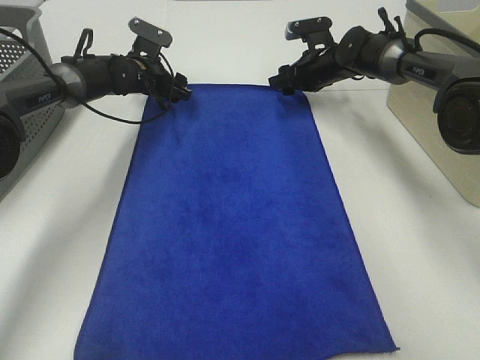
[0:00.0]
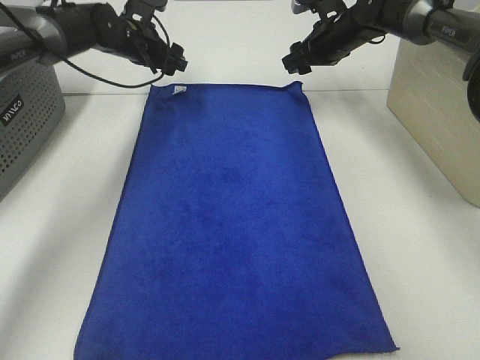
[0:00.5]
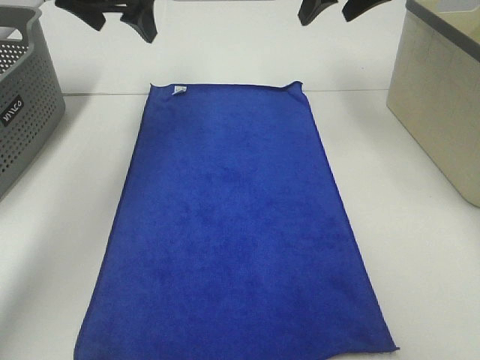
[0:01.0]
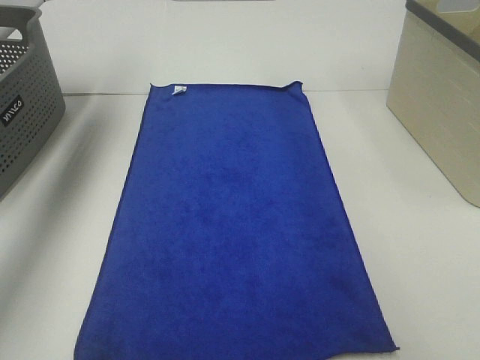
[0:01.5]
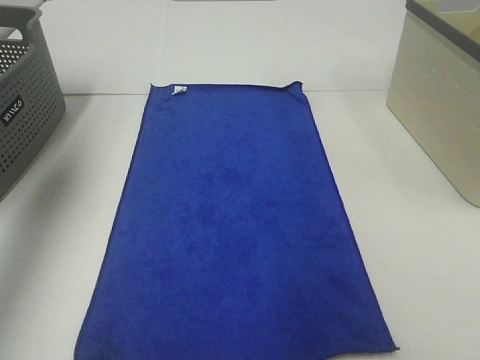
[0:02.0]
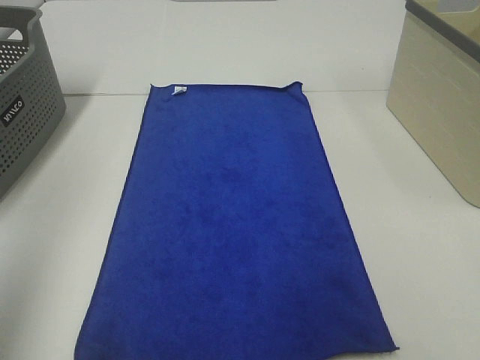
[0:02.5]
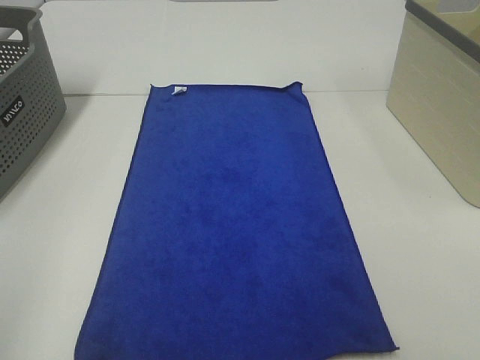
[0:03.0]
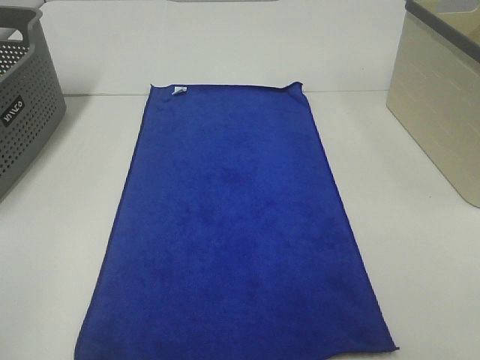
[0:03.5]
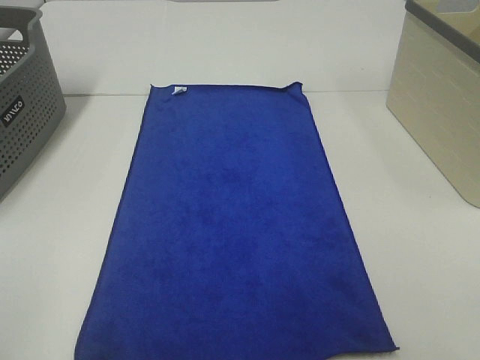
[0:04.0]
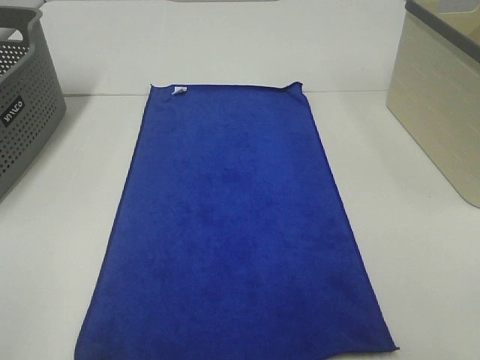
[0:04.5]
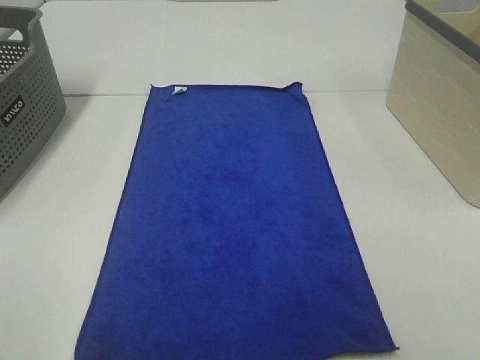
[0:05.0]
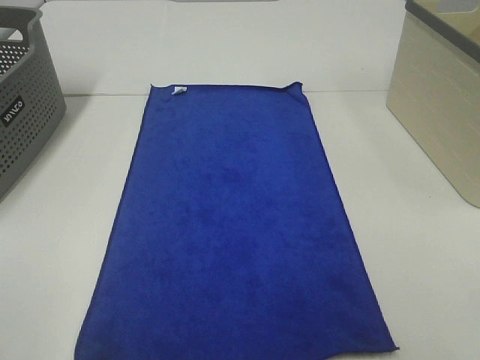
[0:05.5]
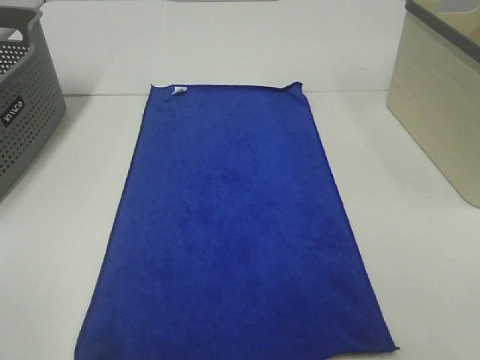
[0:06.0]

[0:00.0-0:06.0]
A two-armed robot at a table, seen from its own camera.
Task of the whole recording: Remove the towel and place it.
0:00.0 to 0:02.0: The right gripper shifts approximately 40 cm upward and backward, while the left gripper goes roughly 50 cm upward, backward and to the left.
0:02.0 to 0:04.0: The left gripper moves backward, roughly 35 cm.

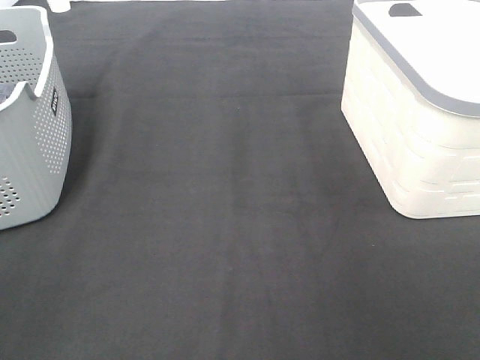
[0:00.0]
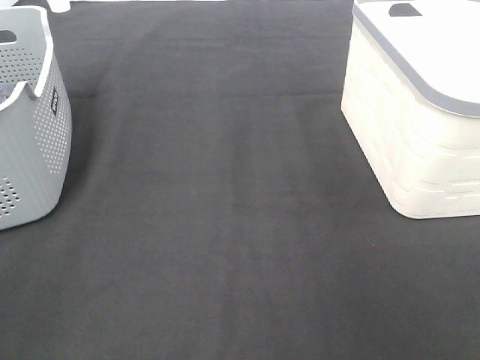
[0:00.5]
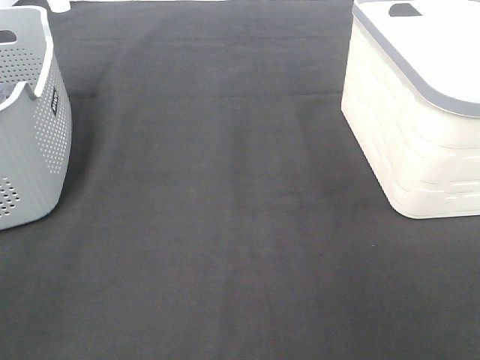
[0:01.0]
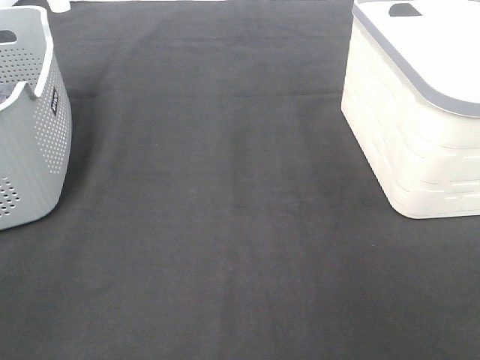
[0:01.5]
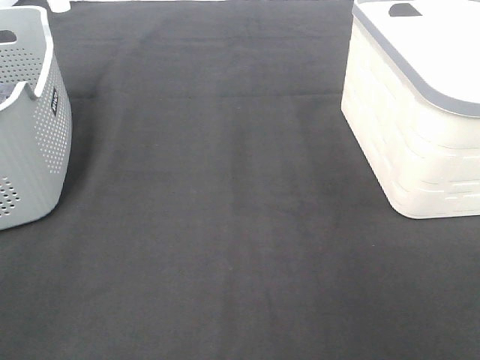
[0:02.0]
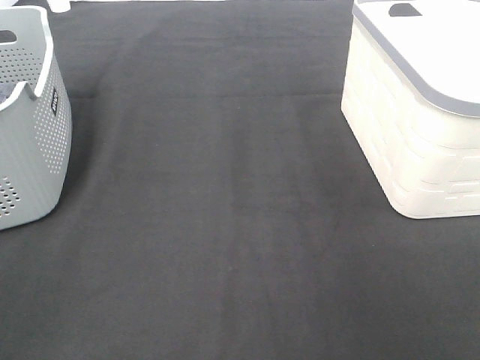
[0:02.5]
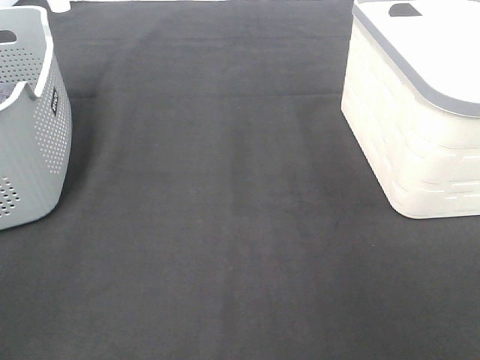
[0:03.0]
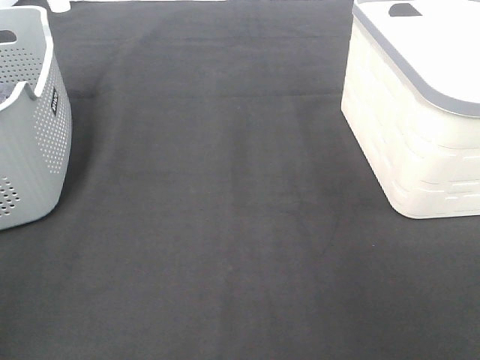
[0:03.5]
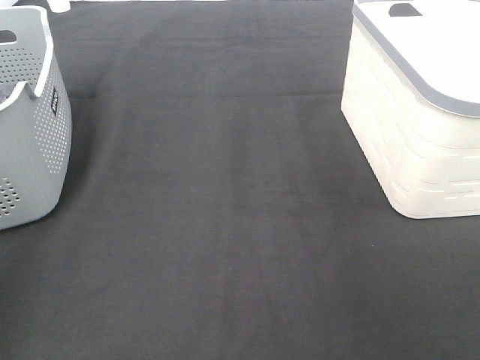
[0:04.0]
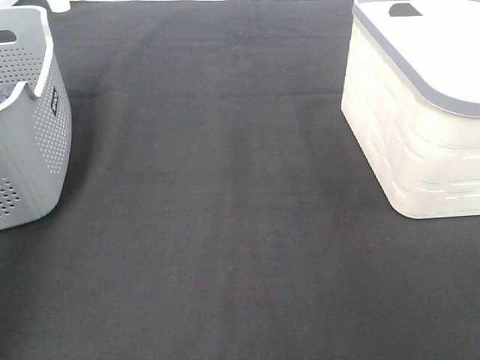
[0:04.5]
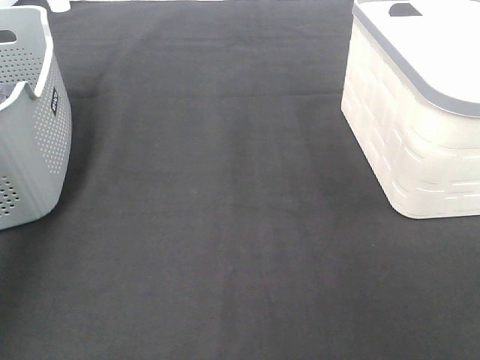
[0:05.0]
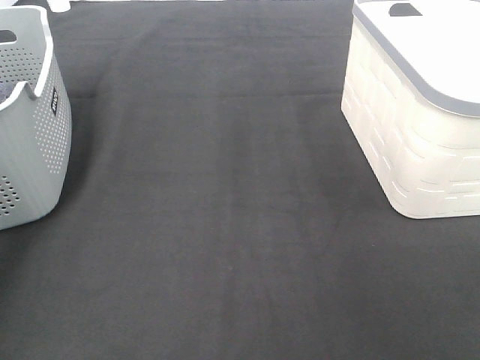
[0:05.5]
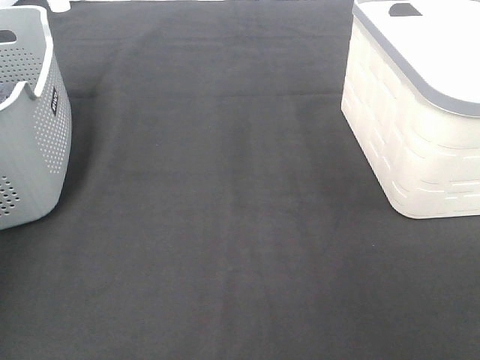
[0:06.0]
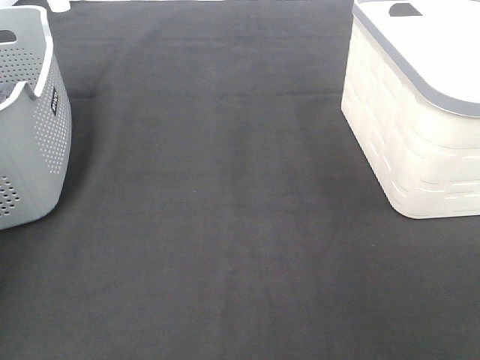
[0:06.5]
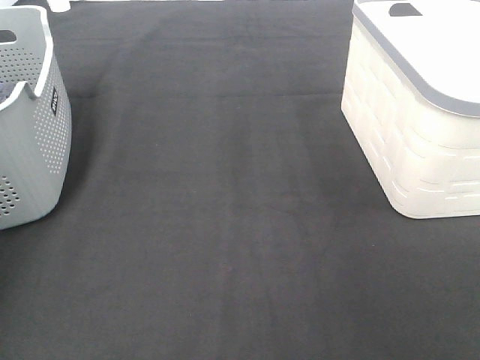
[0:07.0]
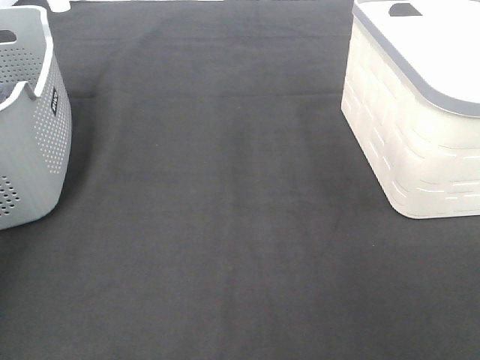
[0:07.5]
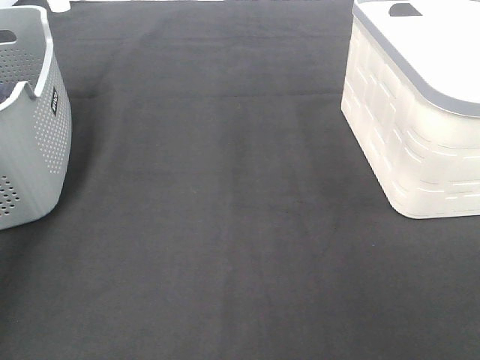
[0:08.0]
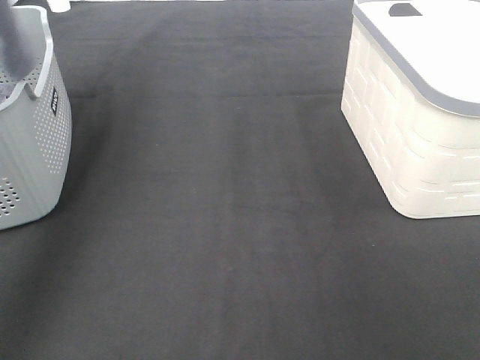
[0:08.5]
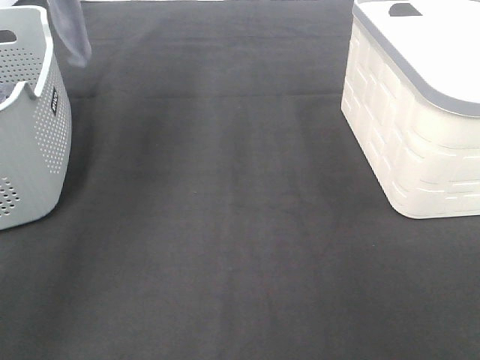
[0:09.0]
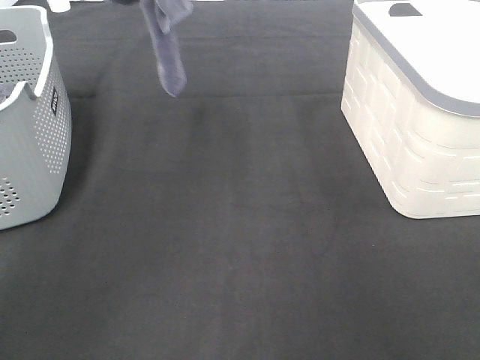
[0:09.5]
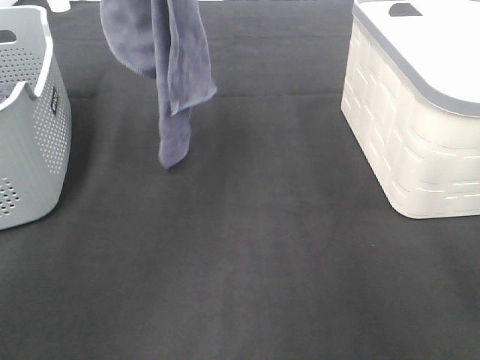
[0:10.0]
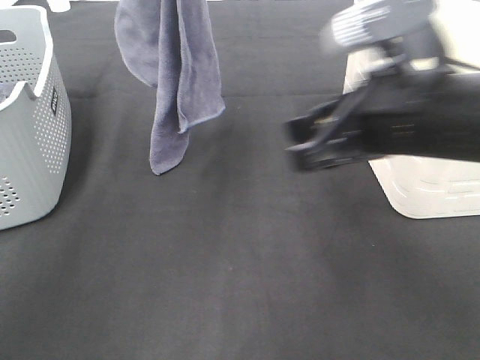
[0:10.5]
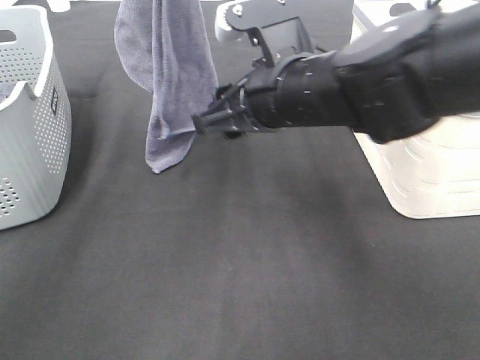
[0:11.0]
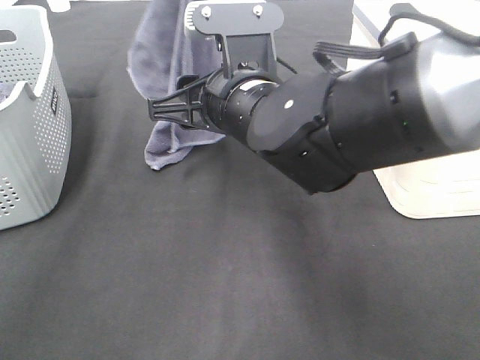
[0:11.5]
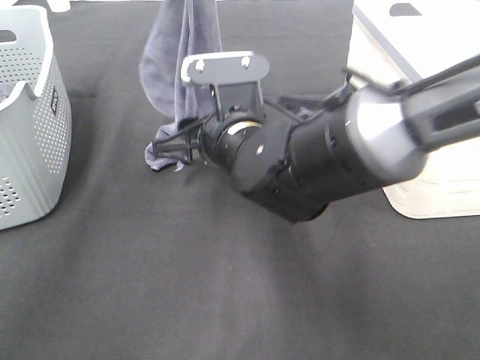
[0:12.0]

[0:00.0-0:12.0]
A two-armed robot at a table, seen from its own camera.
Task of the whole recording: Remove the towel and place it.
0:00.0 to 0:02.0: Both grippers stay put.
0:06.0 to 0:08.0: The left gripper moves upward, about 20 cm, and closes its fingers.
0:08.0 to 0:10.0: The right gripper goes about 15 cm forward. Meanwhile the left gripper moves to the right, approximately 25 cm.
0:10.0 to 0:12.0: The right gripper heads to the left, downward and forward, covering approximately 30 cm, while the left gripper shifts approximately 5 cm downward.

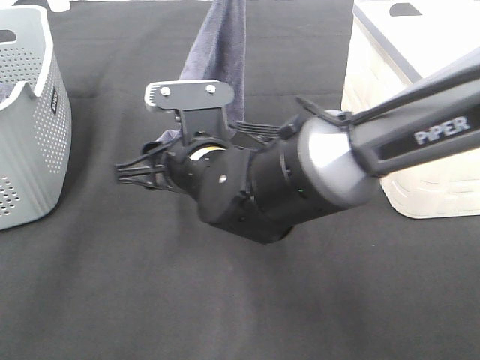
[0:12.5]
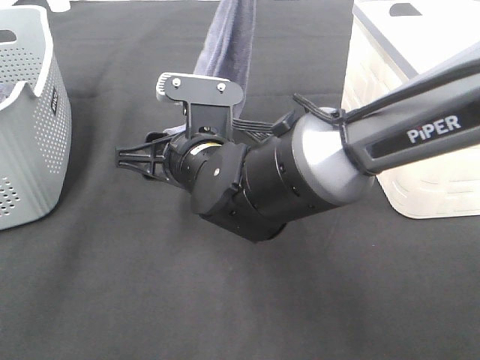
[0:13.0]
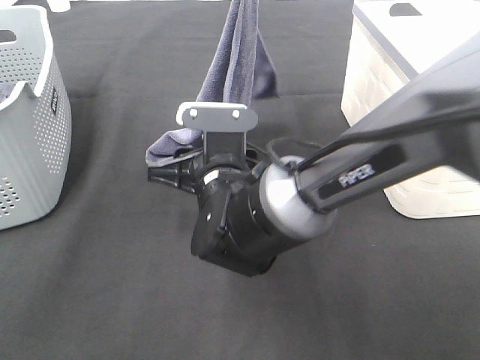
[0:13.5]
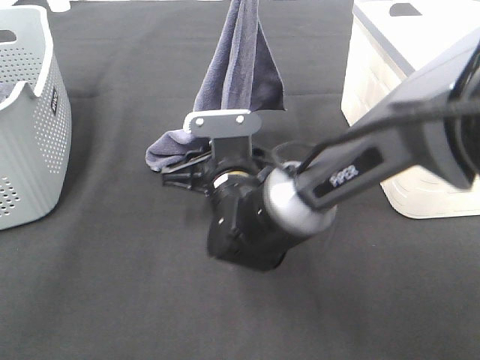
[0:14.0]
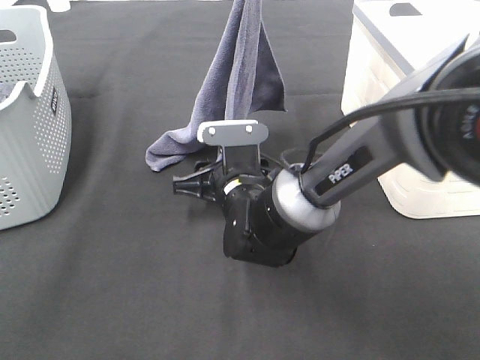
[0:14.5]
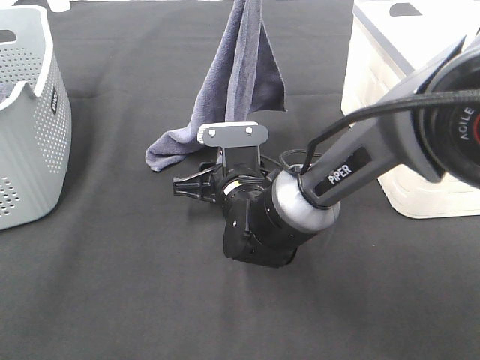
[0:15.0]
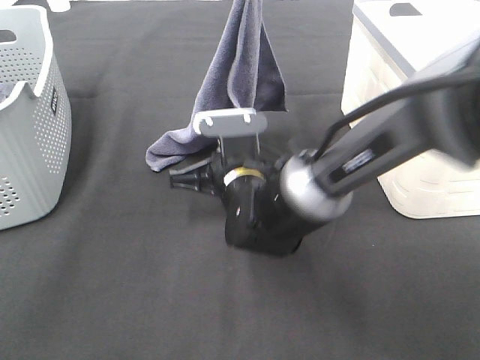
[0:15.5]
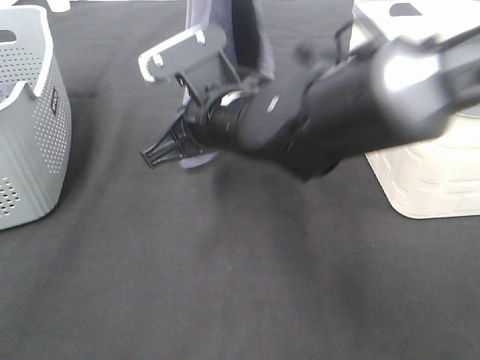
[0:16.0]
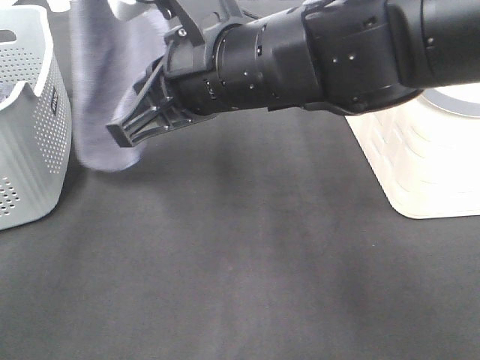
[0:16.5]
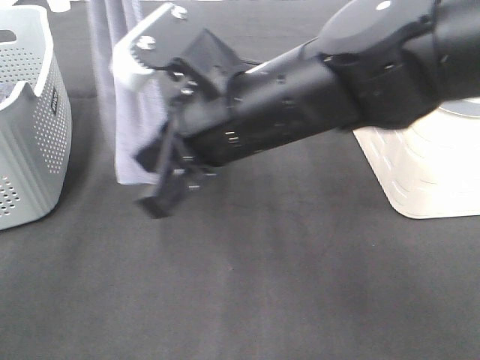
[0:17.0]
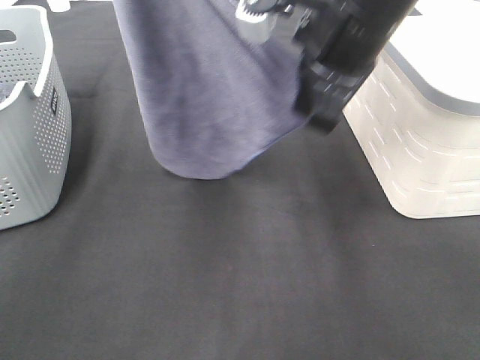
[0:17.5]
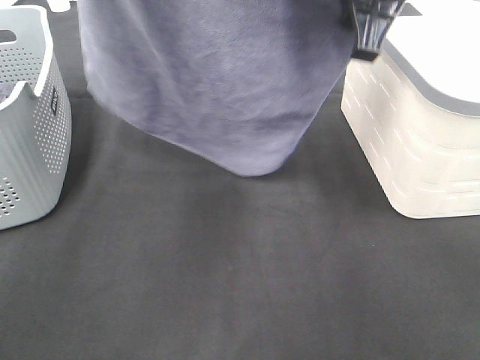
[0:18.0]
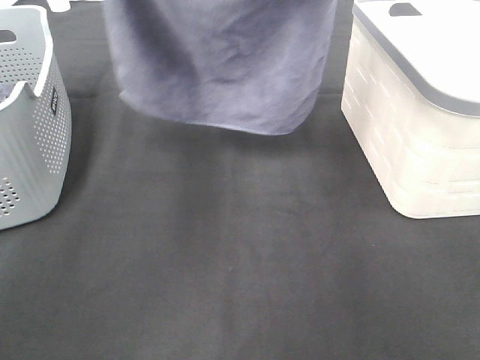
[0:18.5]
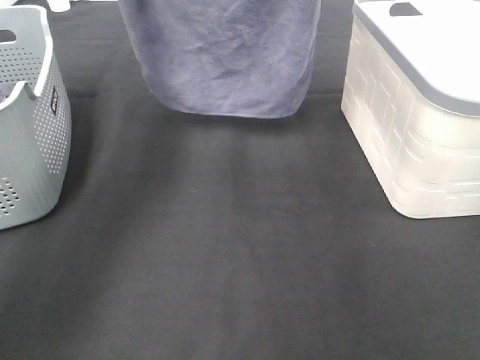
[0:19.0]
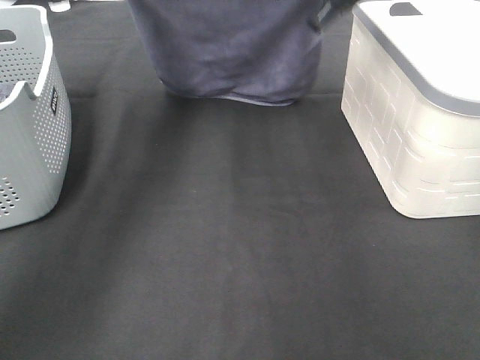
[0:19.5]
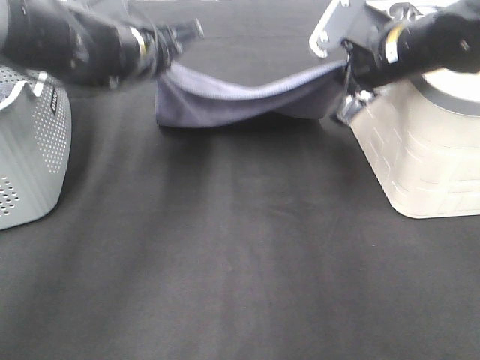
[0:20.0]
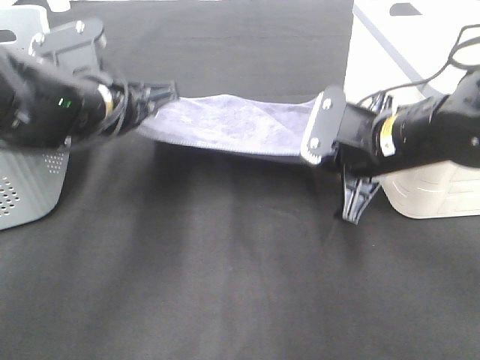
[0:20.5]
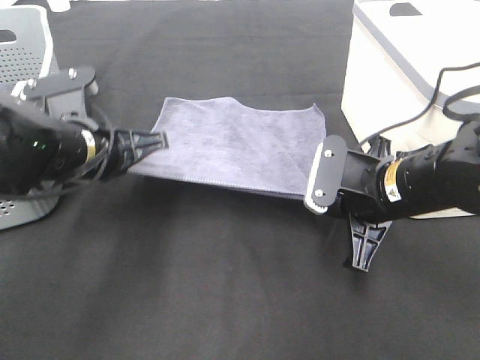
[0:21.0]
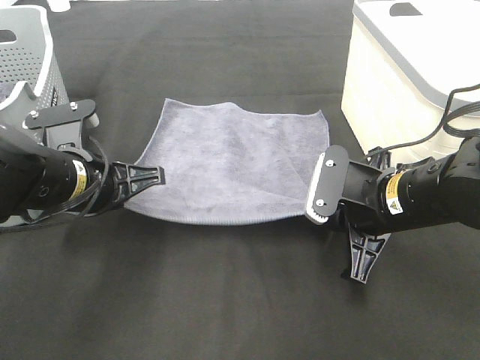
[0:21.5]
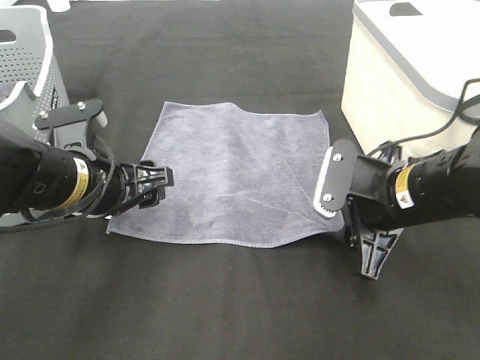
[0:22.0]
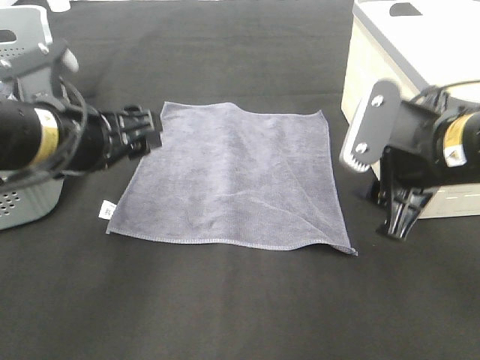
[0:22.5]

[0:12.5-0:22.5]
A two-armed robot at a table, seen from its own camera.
Task of the whole recording: Remove the towel and place it.
Step, 0:12.5 to 0:14.5: Right hand: grab a corner of the grey towel and straighten it.
Step, 0:15.0 to 0:17.0: Left hand: spread the grey towel flat on the table.
Step, 0:15.0 to 0:17.0: Right hand: spread the grey towel flat on the table.
0:12.5 to 0:14.5: The right gripper heads downward, covering approximately 10 cm.
0:14.5 to 0:16.5: The left gripper is displaced upward and to the left by some 20 cm, while the right gripper shifts some 20 cm upward, and closes up.
0:16.5 to 0:18.5: The right gripper travels to the right, forward and upward by some 20 cm, while the left gripper heads downward, covering approximately 10 cm.
0:18.5 to 0:20.5: The two grippers go some 20 cm downward.
0:20.5 to 0:22.5: The right gripper heads backward and upward, covering about 10 cm, and opens; the left gripper shifts about 5 cm backward, and opens.
